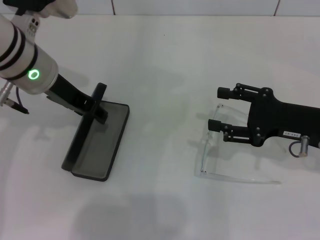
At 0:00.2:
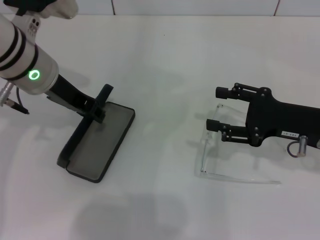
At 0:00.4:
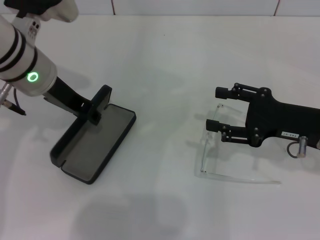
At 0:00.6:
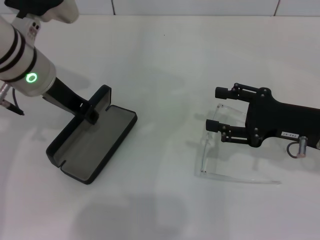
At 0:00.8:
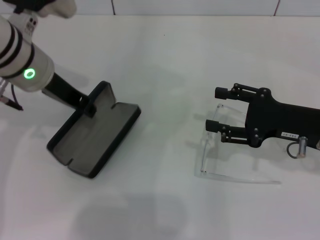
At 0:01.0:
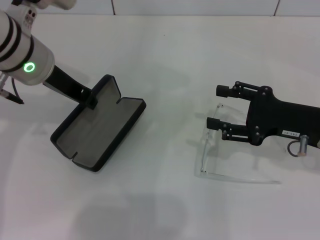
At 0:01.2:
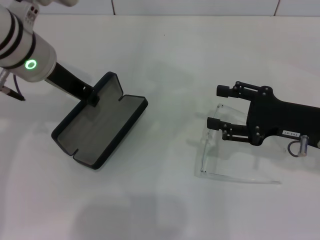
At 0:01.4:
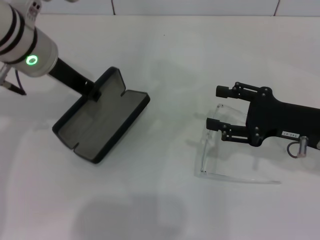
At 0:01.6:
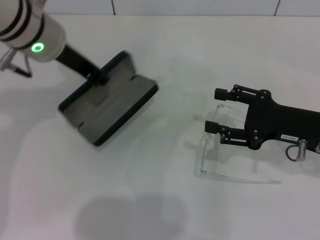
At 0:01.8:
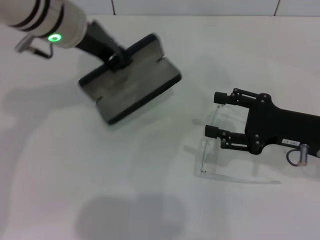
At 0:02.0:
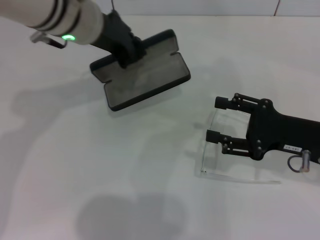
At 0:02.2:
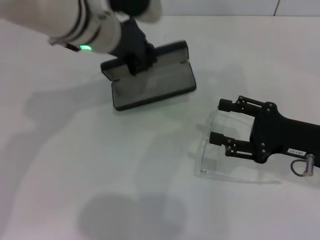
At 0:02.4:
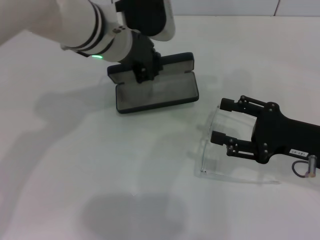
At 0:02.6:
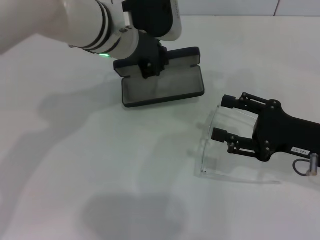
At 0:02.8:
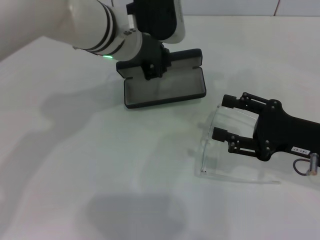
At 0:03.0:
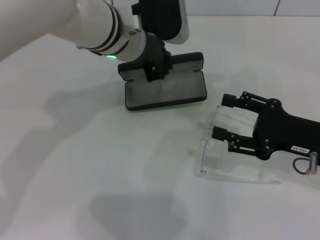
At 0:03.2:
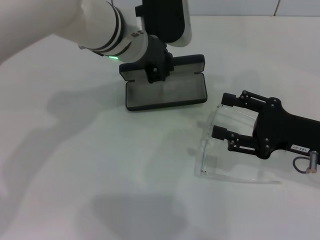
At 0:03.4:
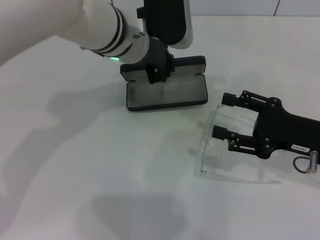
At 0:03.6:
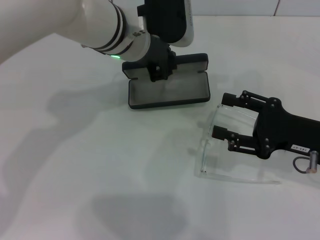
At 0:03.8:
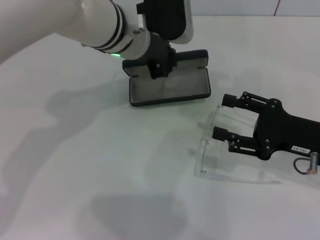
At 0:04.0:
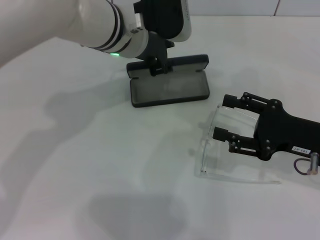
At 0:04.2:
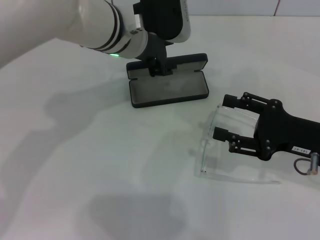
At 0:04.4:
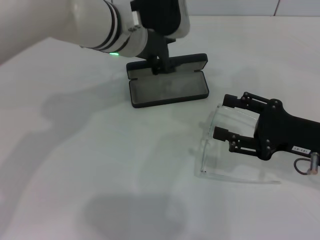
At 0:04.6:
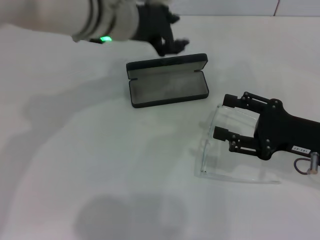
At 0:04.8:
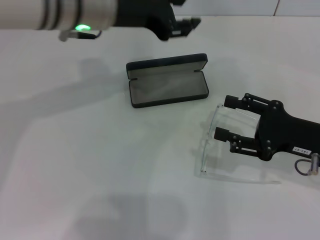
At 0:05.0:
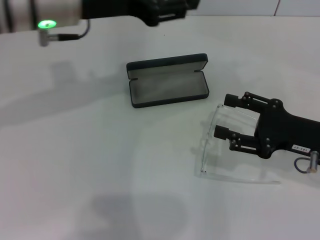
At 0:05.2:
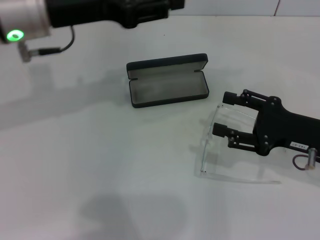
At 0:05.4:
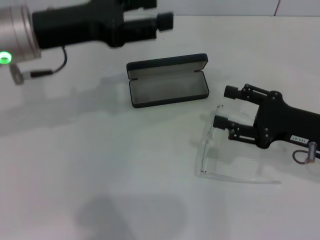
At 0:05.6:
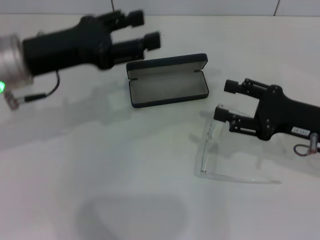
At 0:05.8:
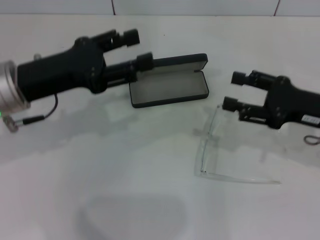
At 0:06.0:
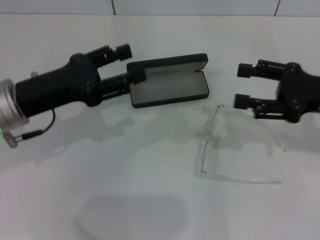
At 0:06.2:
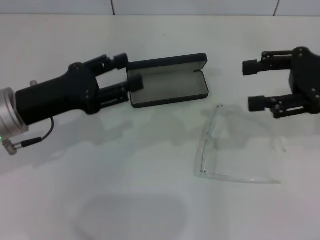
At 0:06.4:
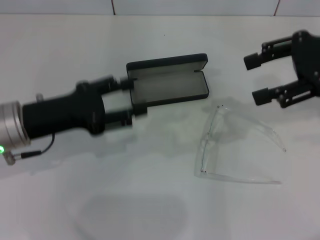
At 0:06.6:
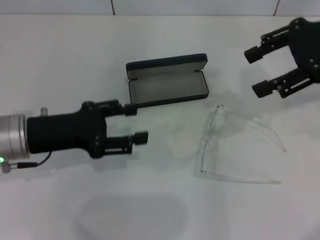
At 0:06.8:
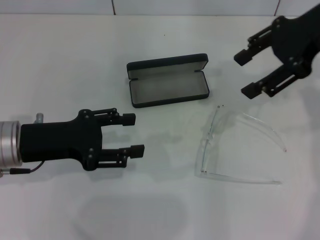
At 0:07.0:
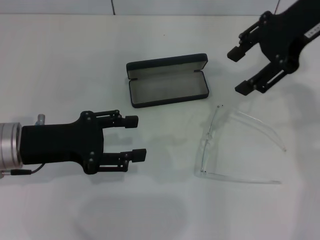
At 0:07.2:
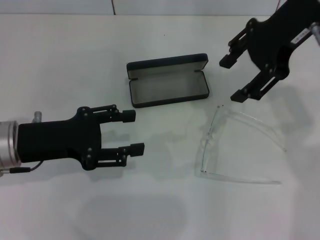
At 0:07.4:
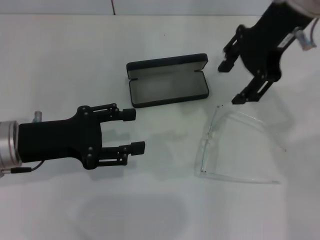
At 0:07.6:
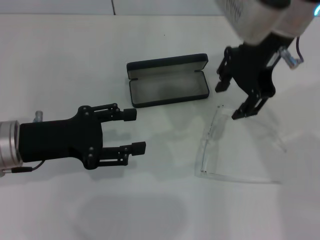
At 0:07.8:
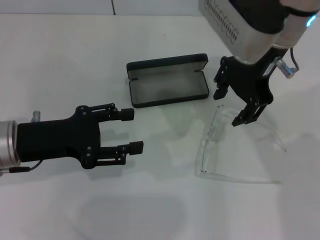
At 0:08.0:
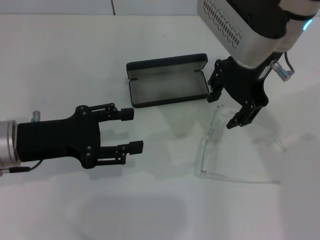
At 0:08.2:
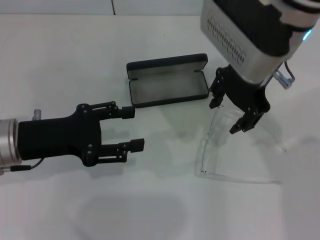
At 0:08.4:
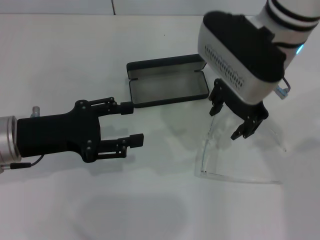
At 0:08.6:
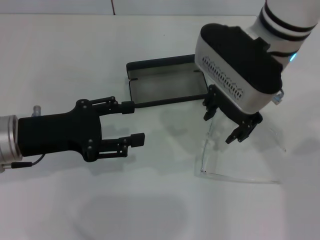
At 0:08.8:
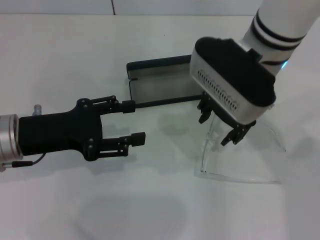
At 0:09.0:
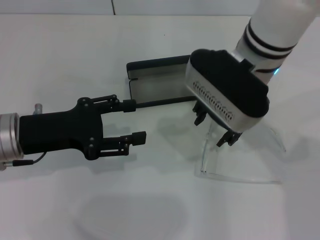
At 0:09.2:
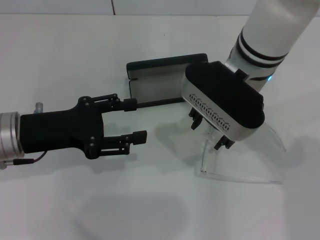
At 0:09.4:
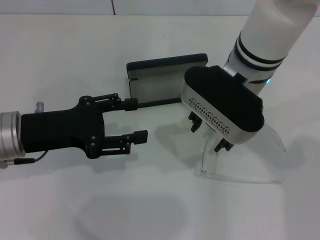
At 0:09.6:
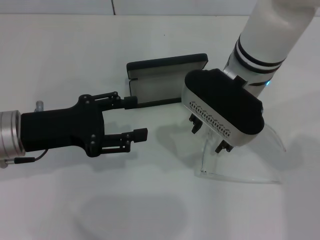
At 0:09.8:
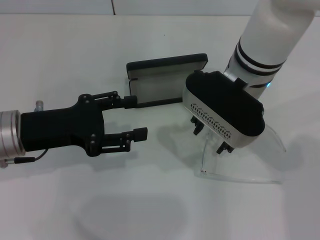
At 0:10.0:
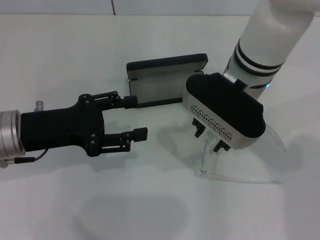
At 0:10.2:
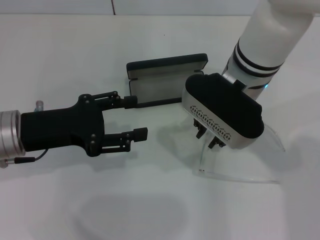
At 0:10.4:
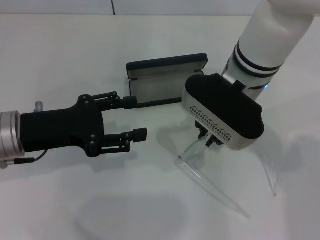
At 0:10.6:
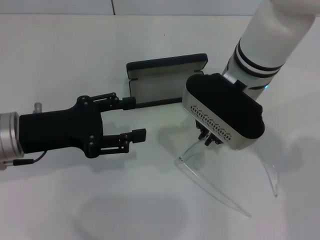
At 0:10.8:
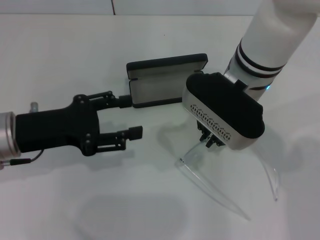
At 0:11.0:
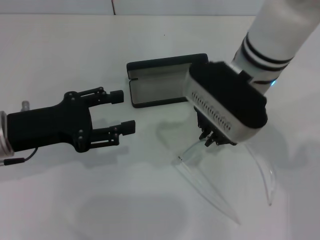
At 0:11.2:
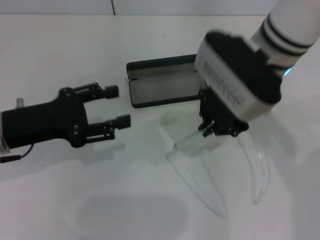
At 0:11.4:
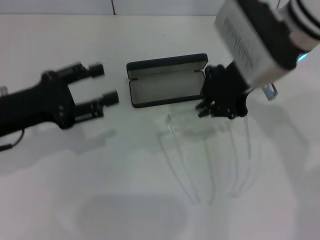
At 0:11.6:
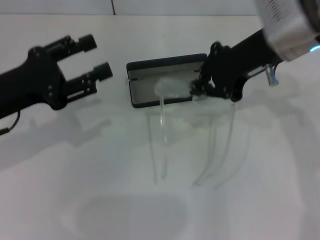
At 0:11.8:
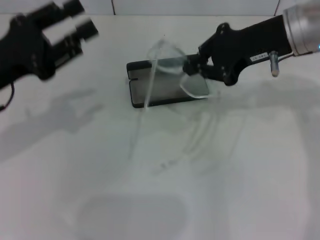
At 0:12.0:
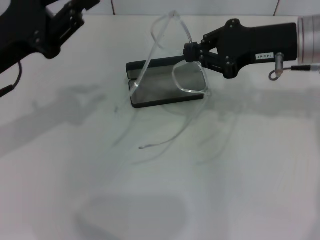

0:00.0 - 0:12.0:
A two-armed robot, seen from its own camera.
Step, 0:01.0 - 0:04.0: Place the glasses case in the center of the table with your left hand.
Step, 0:04.2 - 0:10.4: Grab the eyeglass frame with your right hand.
0:00.0 - 0:01.6: The left gripper closes its fingers.
0:01.6 - 0:03.0: The left gripper shifts roughly 10 cm to the right.
0:03.0 - 0:04.4: The left gripper opens up.
0:04.4 - 0:06.0: The right gripper travels upward by some 5 cm. Meanwhile the left gripper is displaced to the left and backward by about 20 cm.
0:06.0 - 0:07.6: The right gripper goes about 20 cm to the left and upward.
0:07.6 - 0:09.0: The right gripper goes approximately 10 cm downward.
0:09.0 - 0:10.4: The right gripper closes up.
0:10.4 - 0:12.0: The right gripper goes about 10 cm to the right, while the left gripper heads upward, covering approximately 5 cm.

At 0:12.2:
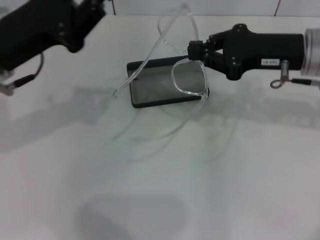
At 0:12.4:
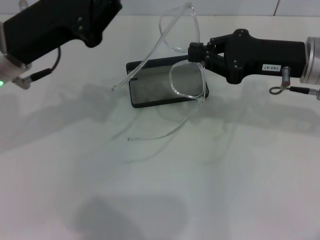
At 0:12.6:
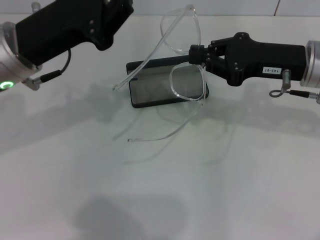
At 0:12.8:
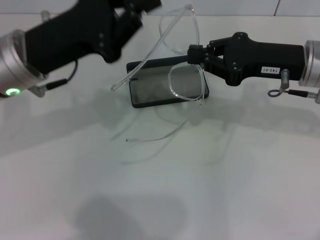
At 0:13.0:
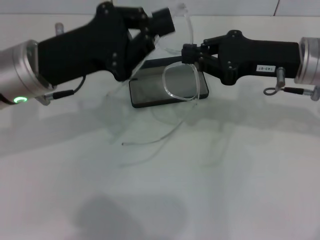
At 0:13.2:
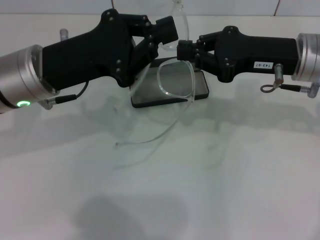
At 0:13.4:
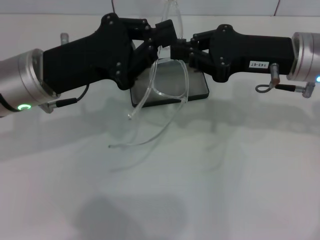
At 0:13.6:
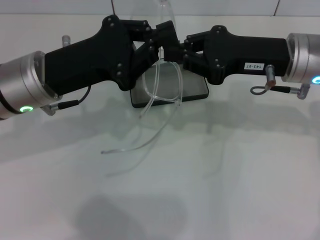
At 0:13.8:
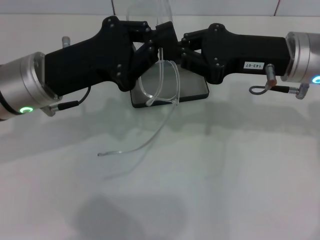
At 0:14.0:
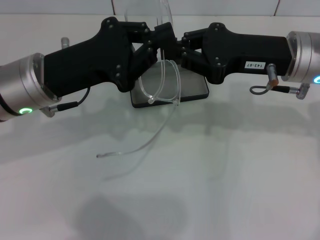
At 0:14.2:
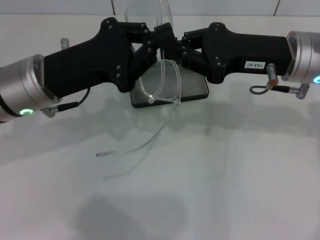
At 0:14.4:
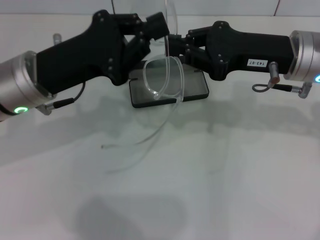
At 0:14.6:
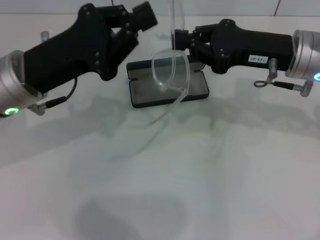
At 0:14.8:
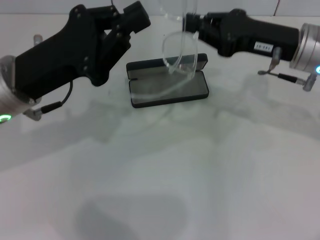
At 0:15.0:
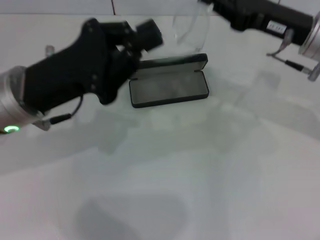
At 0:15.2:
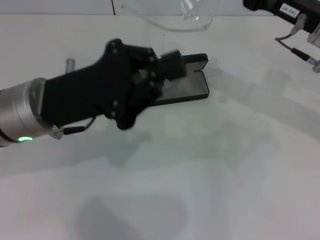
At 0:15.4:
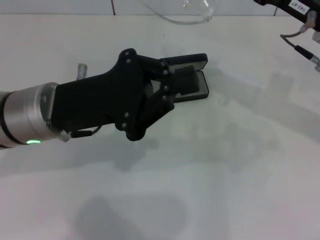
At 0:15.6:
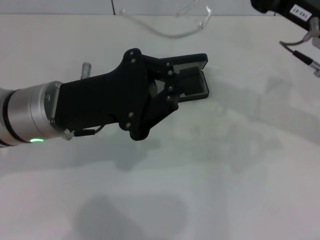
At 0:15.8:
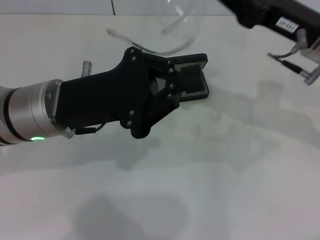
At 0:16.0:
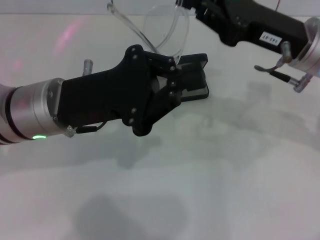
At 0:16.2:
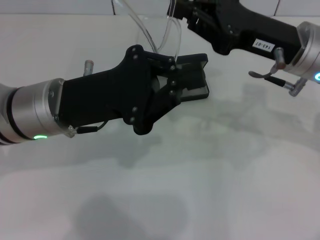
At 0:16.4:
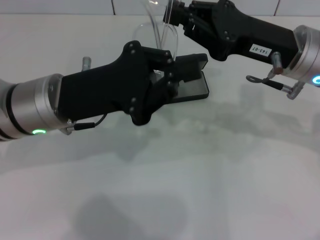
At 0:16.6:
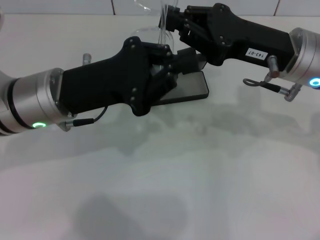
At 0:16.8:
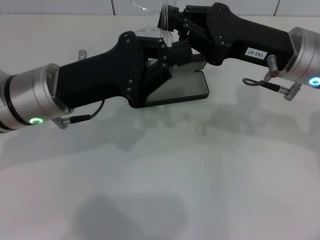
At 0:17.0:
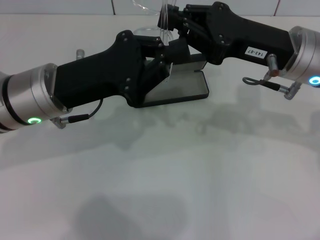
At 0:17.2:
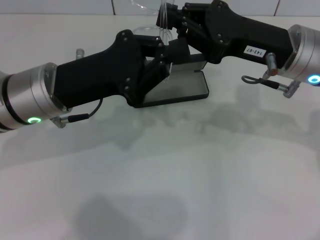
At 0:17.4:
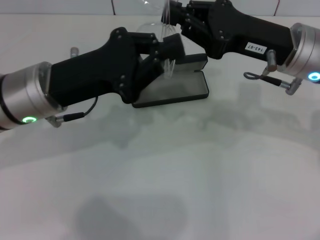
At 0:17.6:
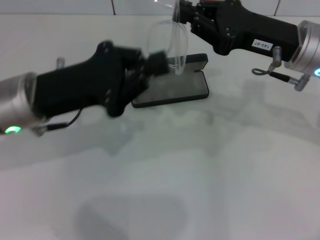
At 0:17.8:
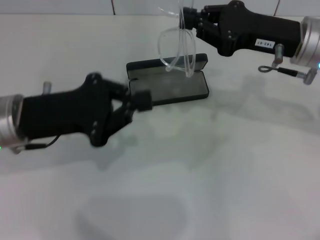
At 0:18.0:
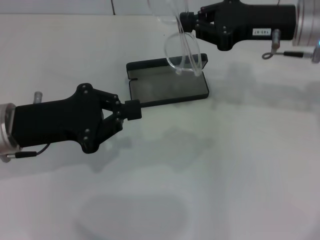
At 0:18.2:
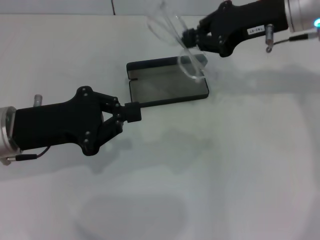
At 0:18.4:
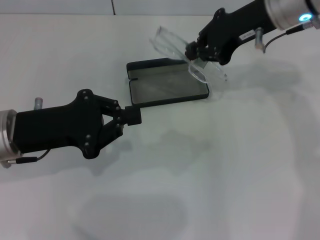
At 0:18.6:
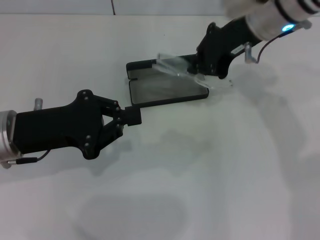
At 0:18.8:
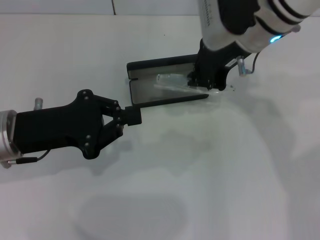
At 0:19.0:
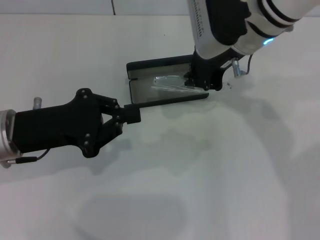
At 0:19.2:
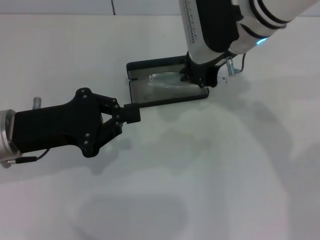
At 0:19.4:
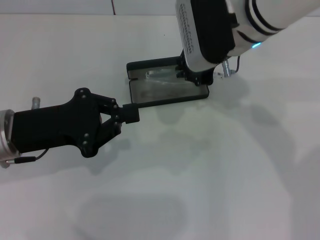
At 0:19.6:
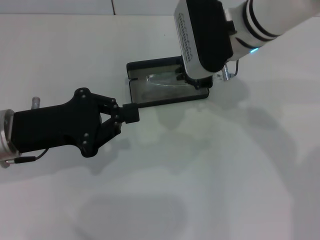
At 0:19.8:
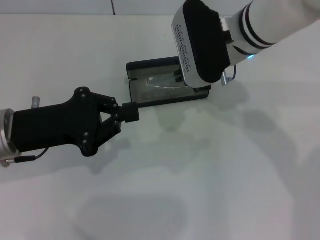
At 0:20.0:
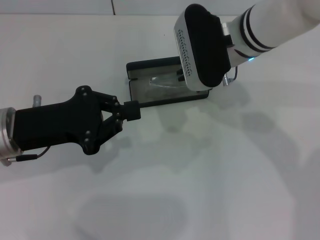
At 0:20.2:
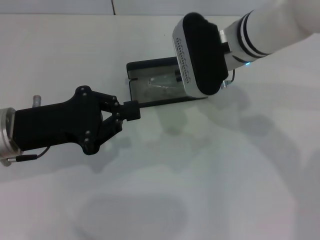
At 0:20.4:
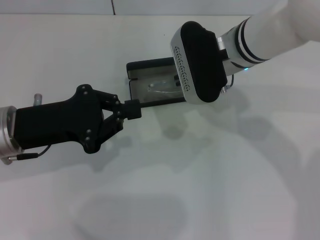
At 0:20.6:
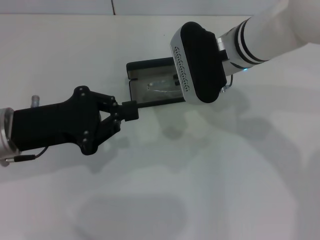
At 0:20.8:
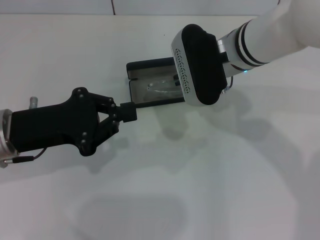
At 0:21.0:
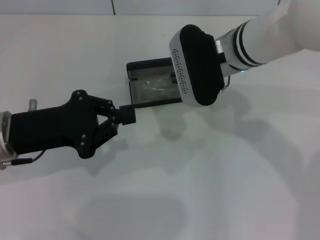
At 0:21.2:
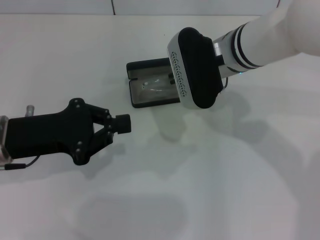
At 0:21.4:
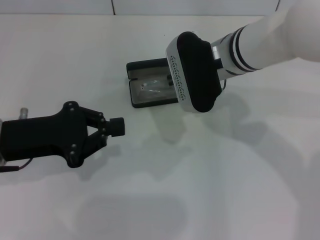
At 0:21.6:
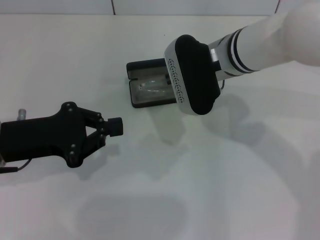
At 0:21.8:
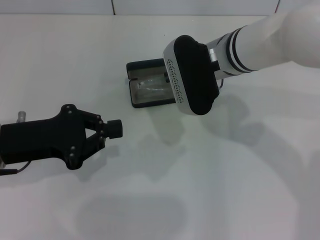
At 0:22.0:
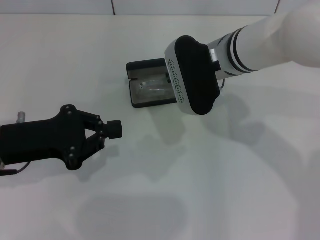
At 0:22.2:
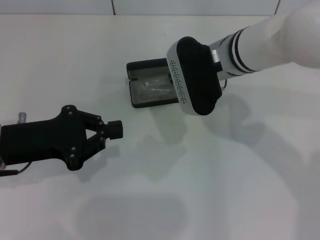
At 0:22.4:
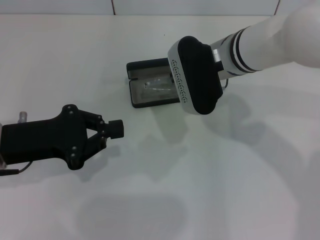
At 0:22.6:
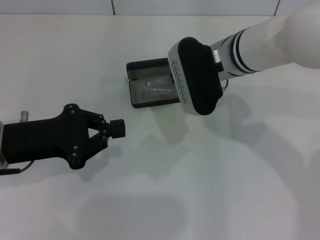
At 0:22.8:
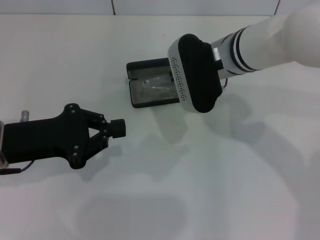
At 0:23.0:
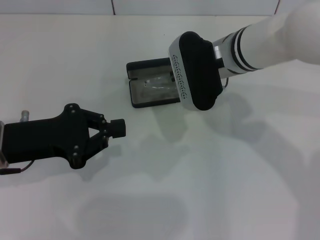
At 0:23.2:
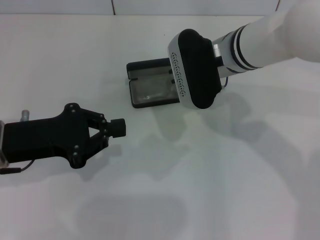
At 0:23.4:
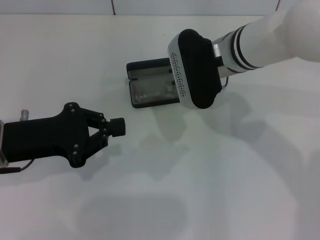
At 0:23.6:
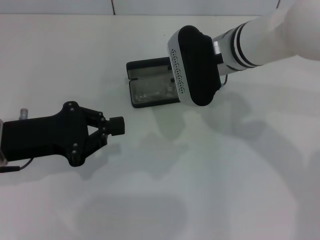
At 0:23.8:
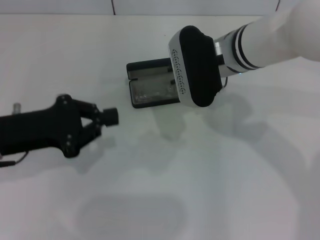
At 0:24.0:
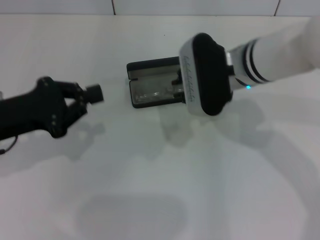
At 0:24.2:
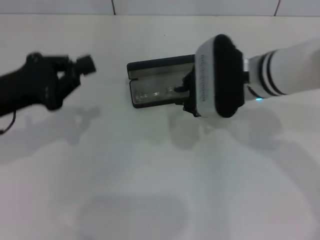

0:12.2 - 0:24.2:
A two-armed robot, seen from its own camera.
Step, 0:12.2 - 0:17.0: Fold the frame with your left hand.
Step, 0:17.4 - 0:23.2: Put the glasses into the case with your right hand.
0:12.2 - 0:13.8: The left gripper closes its fingers.
0:15.2 - 0:16.6: The right gripper ends up approximately 5 cm from where it was.
0:16.6 - 0:18.2: The left gripper heads to the left, covering approximately 5 cm; the right gripper heads forward, covering about 10 cm.
0:18.2 - 0:19.8: The right gripper shifts some 10 cm to the left.
0:19.8 - 0:21.2: The grippers make only small movements.
0:21.2 - 0:22.6: Neither gripper changes place.
